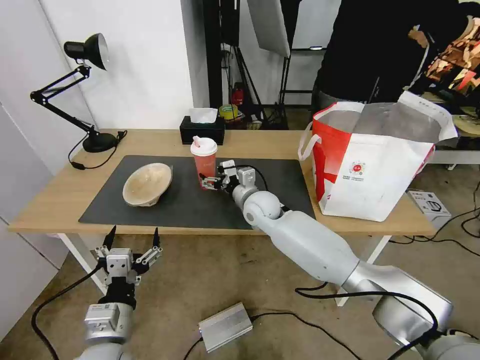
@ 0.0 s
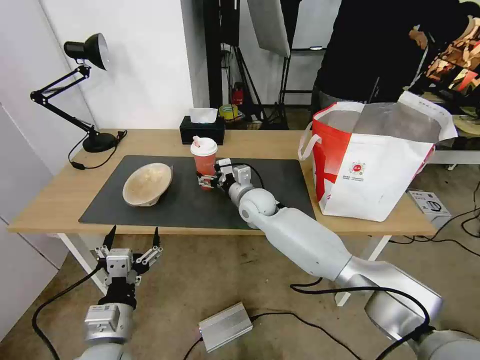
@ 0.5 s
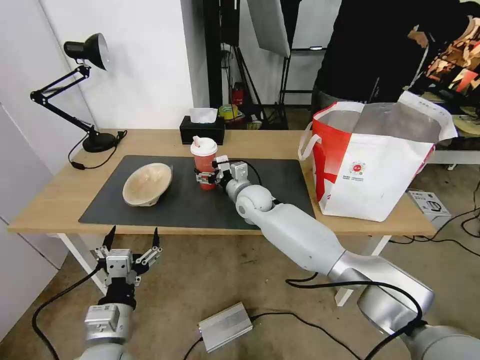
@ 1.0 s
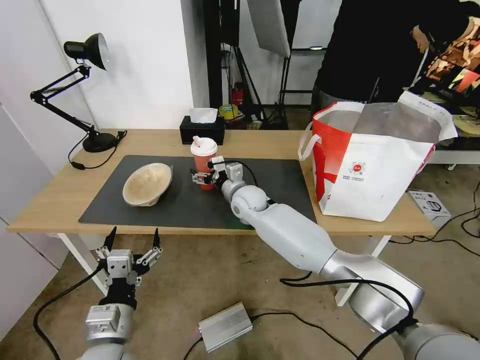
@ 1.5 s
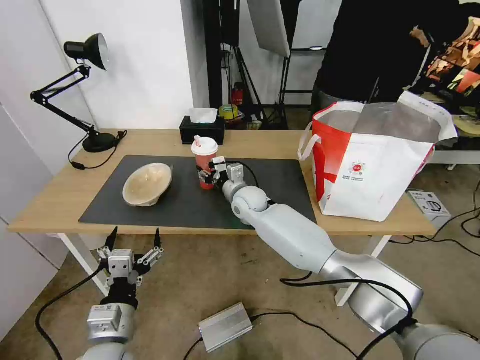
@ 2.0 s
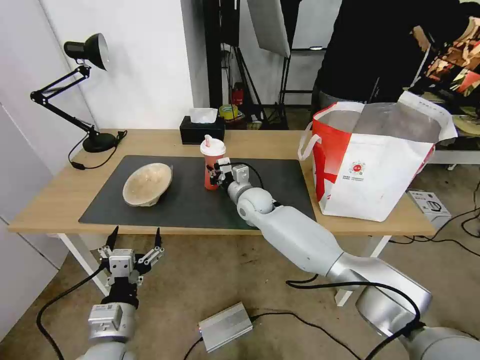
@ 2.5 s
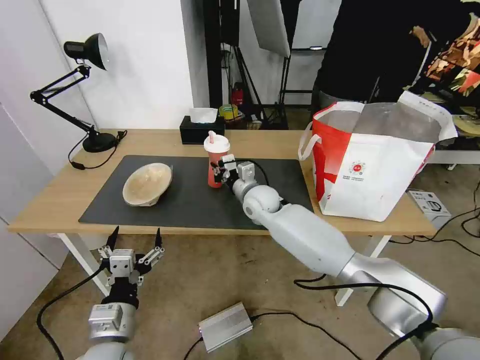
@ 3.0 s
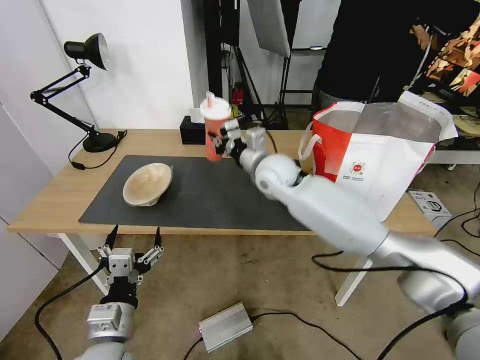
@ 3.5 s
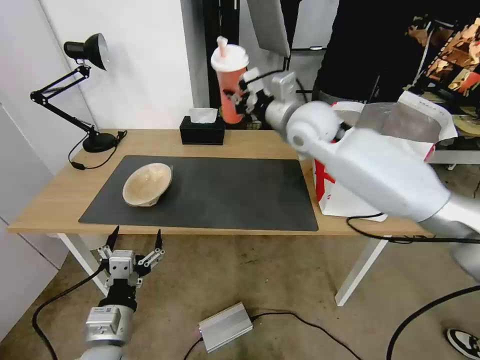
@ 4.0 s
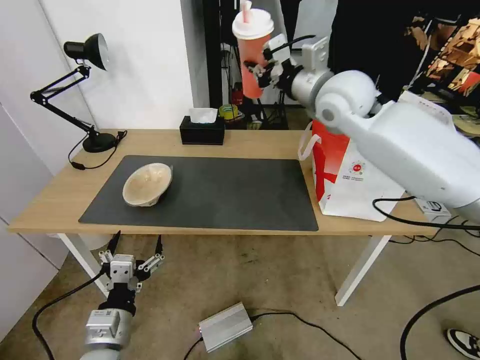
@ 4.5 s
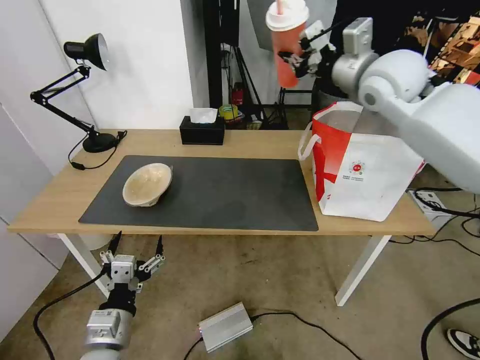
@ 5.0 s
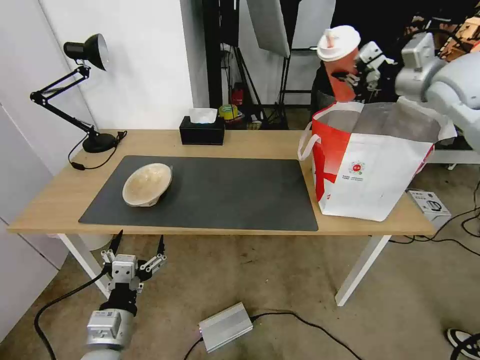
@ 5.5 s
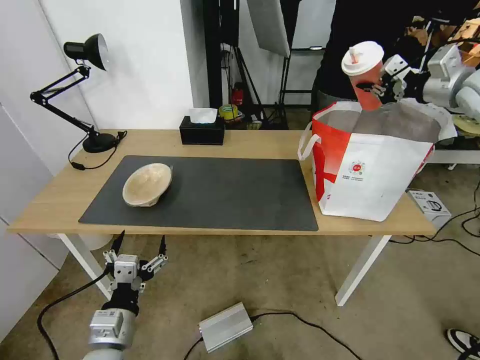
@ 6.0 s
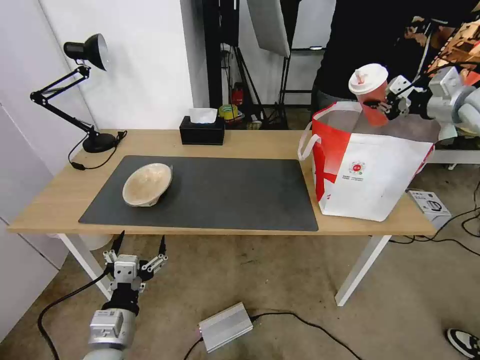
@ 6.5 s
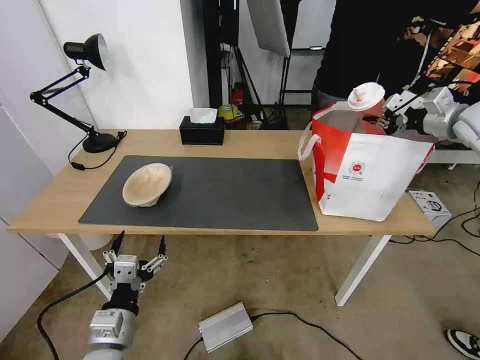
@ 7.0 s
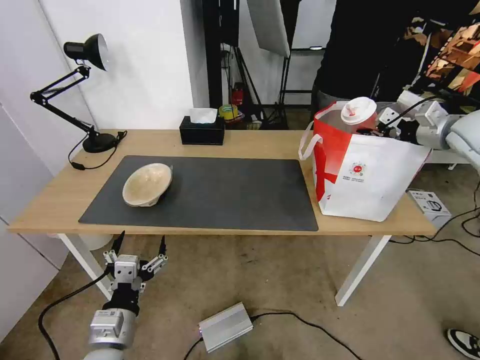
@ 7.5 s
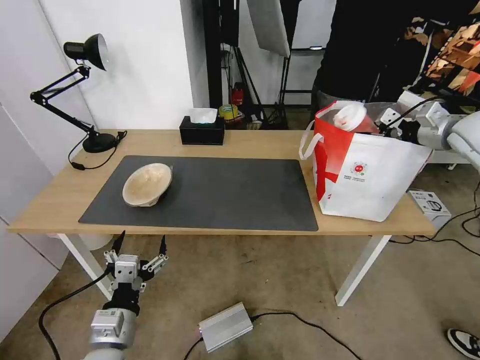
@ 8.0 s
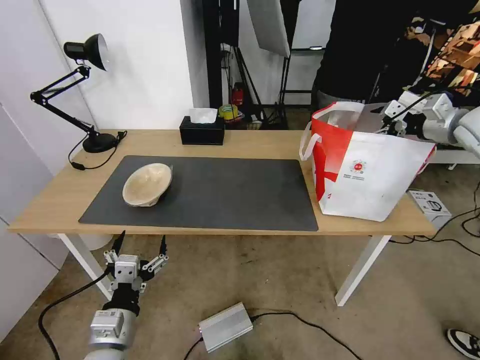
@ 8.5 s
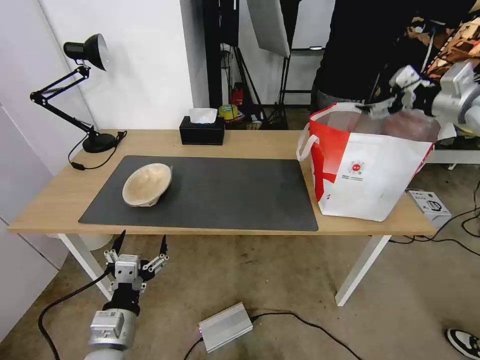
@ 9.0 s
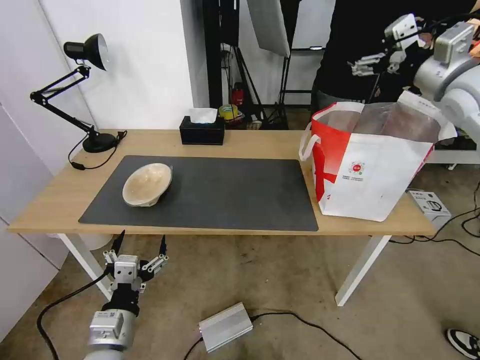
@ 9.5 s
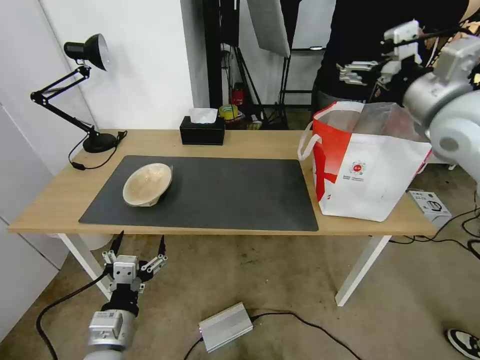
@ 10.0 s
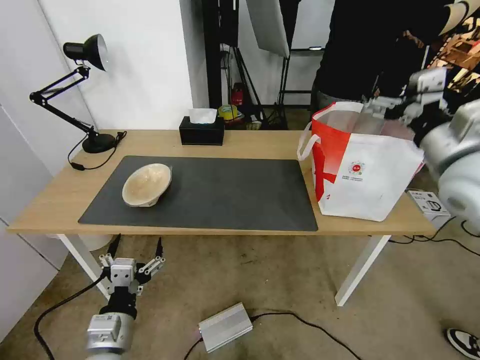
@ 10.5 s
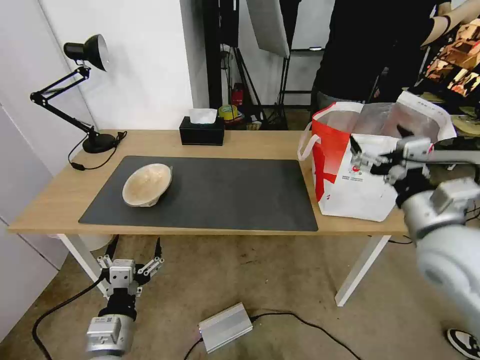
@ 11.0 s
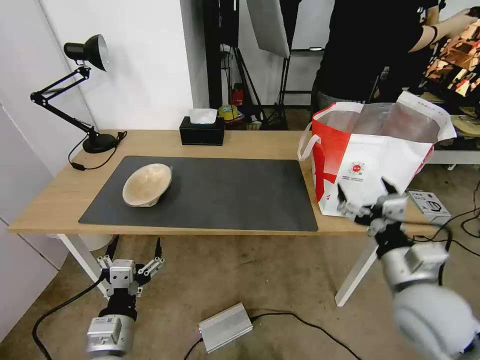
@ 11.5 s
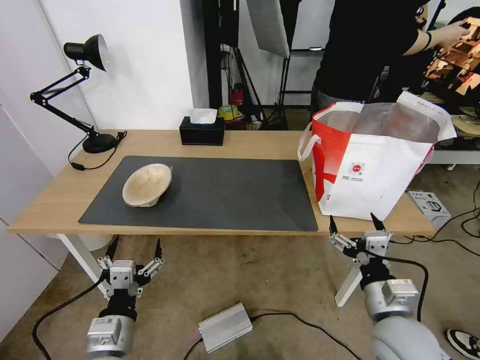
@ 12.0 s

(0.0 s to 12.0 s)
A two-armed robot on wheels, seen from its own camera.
Task of the whole recording: Pick up the trash from the table and place it into the takeout bag.
0.0 s - 2.0 s: The right gripper closes up.
2.0 s - 4.0 s: The right gripper shifts about 25 cm upward and to the right, and closes its fingers.
4.0 s - 6.0 s: The right gripper travels to the right by about 30 cm.
6.0 s - 8.0 s: The right gripper is displaced downward by roughly 10 cm.
8.0 s - 10.0 s: The right gripper travels to the left, backward and upward by roughly 20 cm, and opens up.
10.0 s - 12.0 s: The right gripper is displaced downward and backward by some 40 cm.

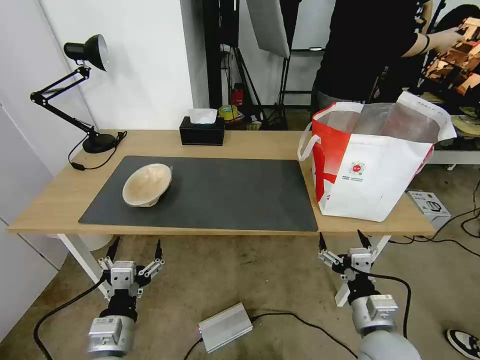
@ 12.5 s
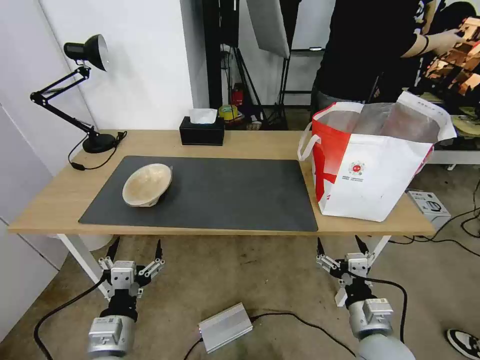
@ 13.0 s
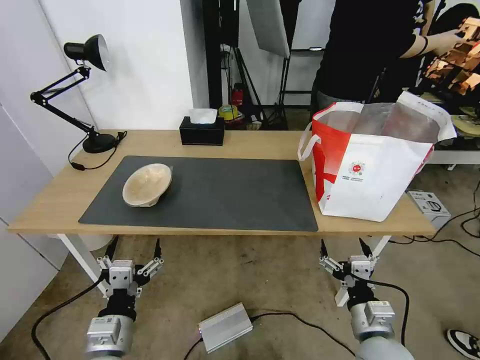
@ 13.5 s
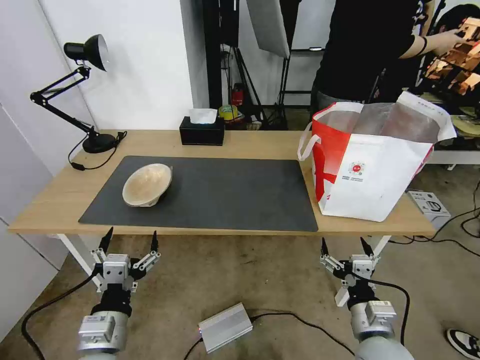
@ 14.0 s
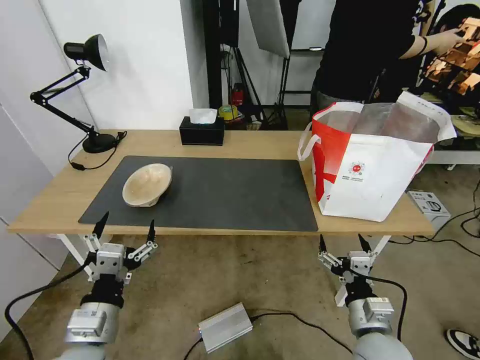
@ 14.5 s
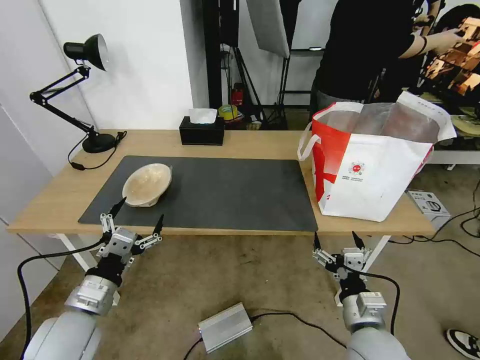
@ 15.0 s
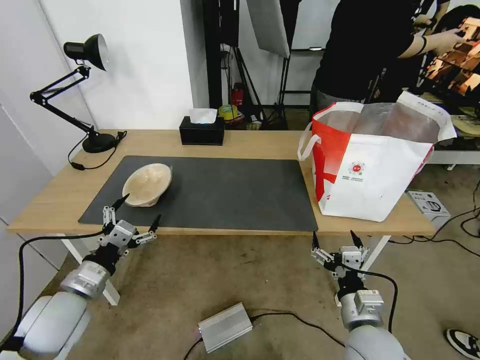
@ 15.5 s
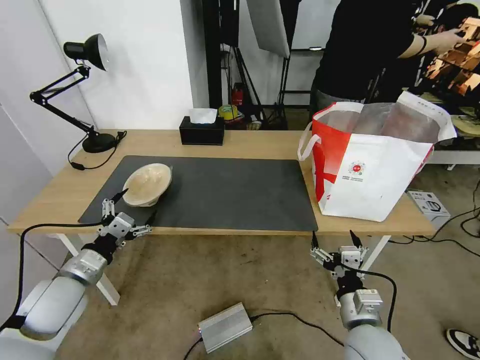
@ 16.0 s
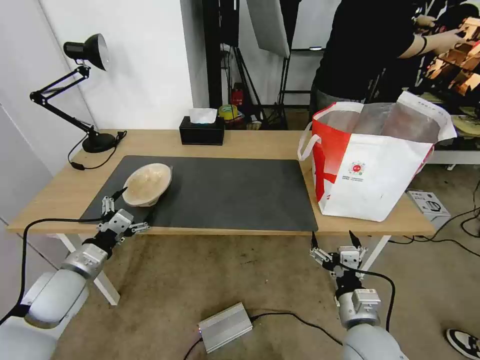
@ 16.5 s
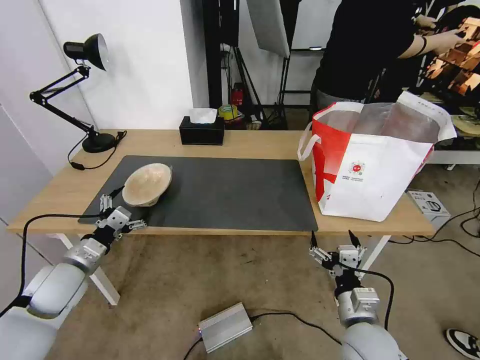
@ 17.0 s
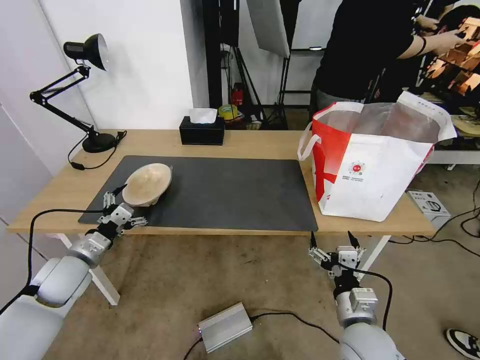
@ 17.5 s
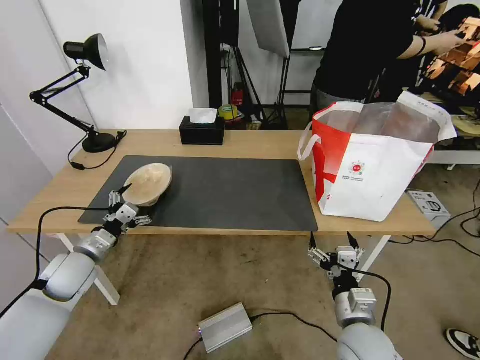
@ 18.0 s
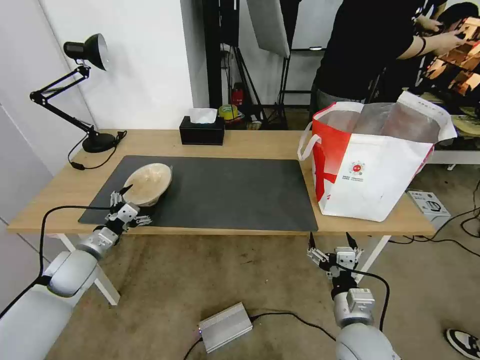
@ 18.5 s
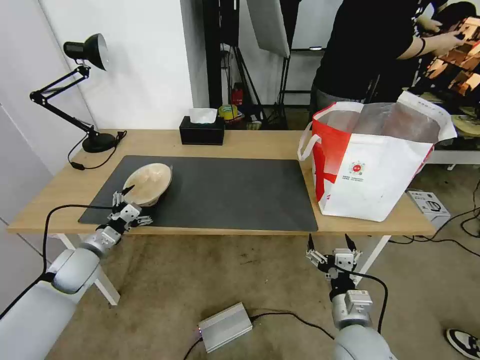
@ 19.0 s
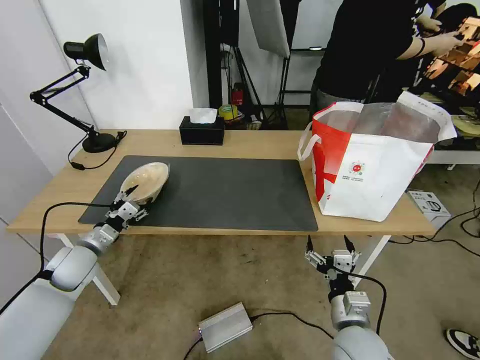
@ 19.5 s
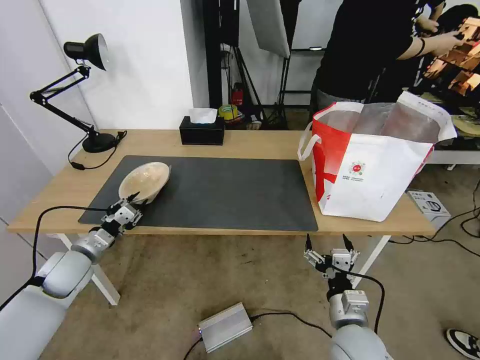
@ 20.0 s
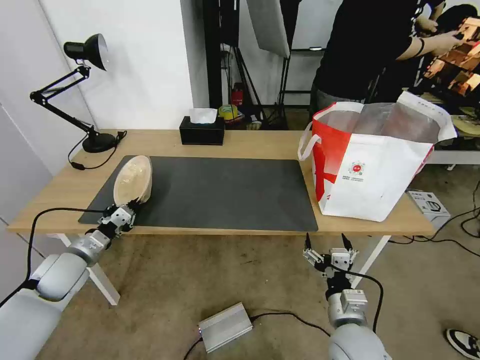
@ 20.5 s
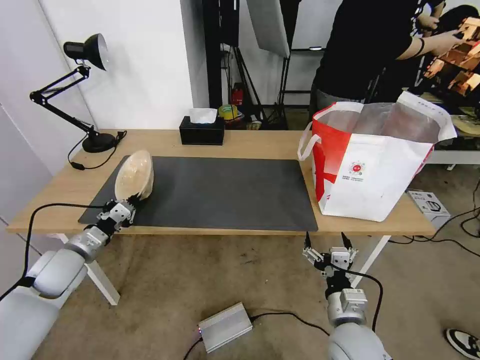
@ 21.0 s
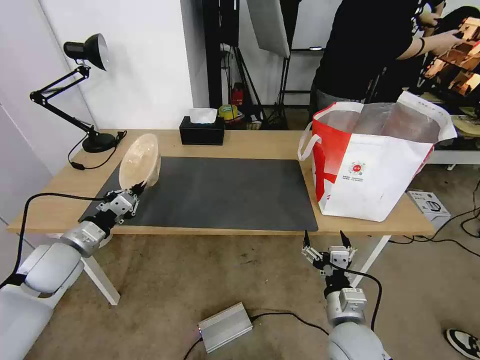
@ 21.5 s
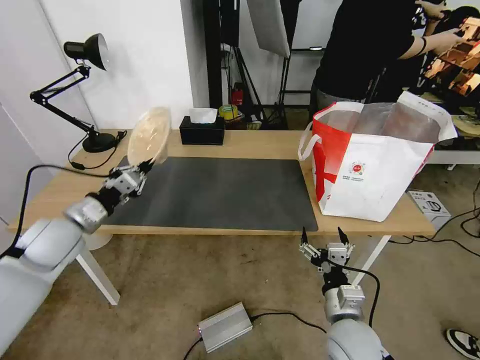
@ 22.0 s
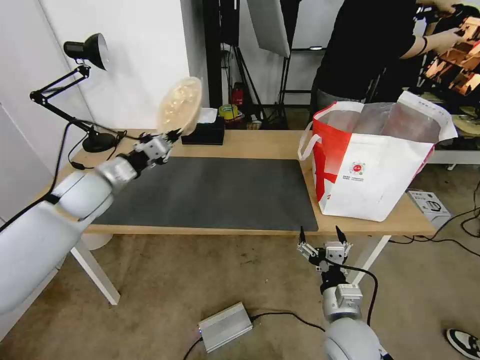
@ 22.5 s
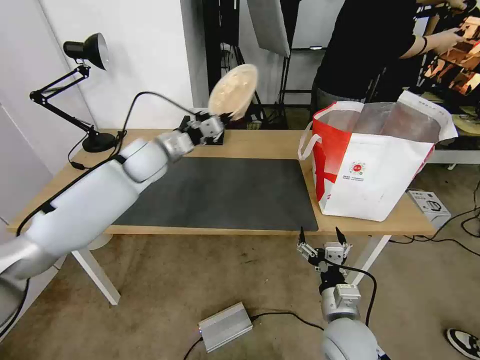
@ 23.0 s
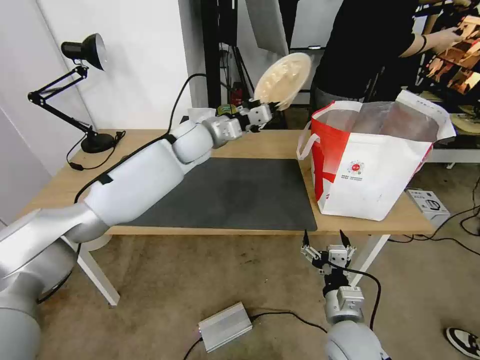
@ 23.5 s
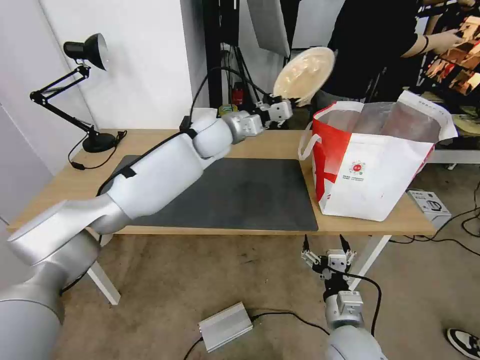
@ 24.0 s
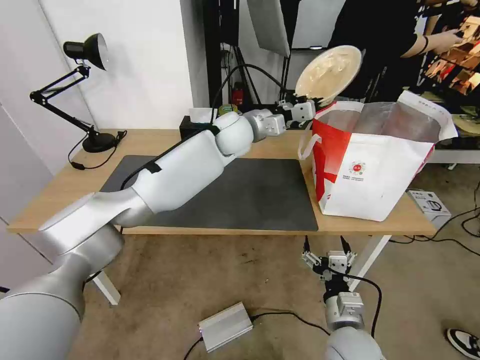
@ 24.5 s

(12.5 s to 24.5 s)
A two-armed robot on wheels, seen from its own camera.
Task of the whole recording: Pick up the trash from the table and place it into the takeout bag.
12.5 s - 14.5 s: The left gripper shifts about 5 cm upward.
14.5 s - 16.5 s: The left gripper heads forward and to the left, covering some 20 cm.
16.5 s - 18.5 s: The left gripper shifts approximately 5 cm forward.
18.5 s - 20.5 s: The left gripper closes.
20.5 s - 22.5 s: The left gripper shifts about 20 cm upward, forward and to the right.
22.5 s - 24.5 s: The left gripper is displaced to the right and forward by about 35 cm.

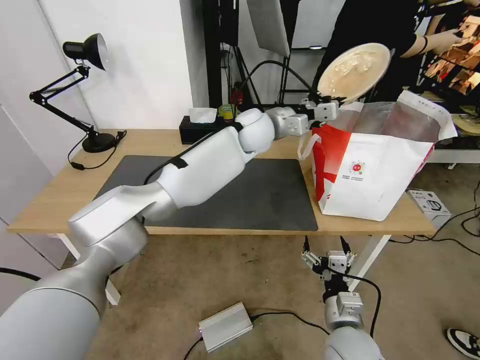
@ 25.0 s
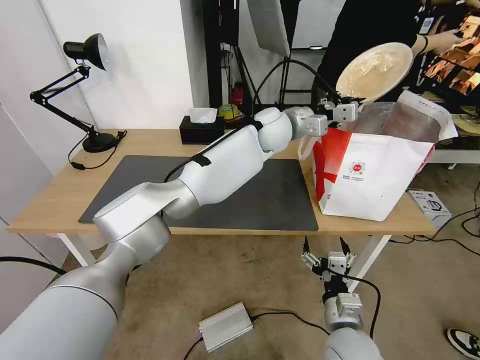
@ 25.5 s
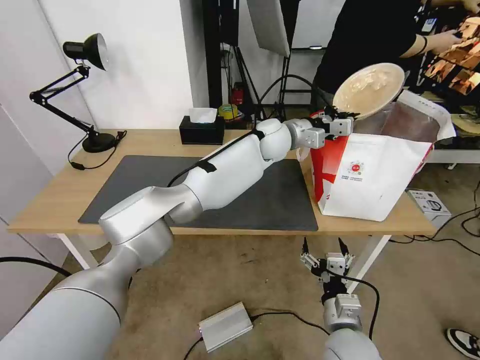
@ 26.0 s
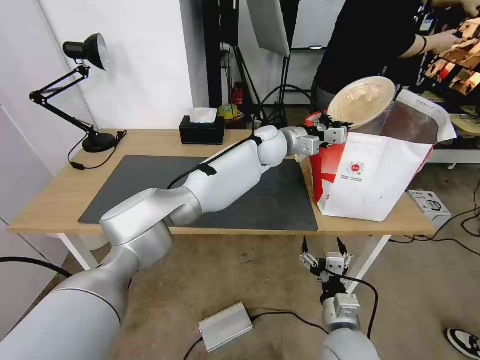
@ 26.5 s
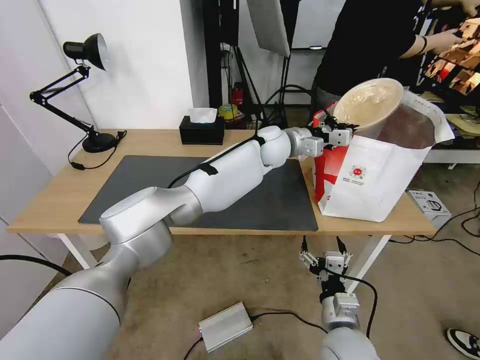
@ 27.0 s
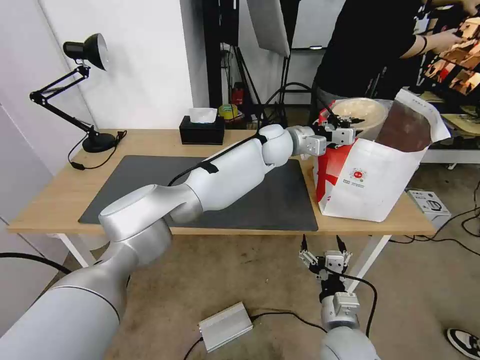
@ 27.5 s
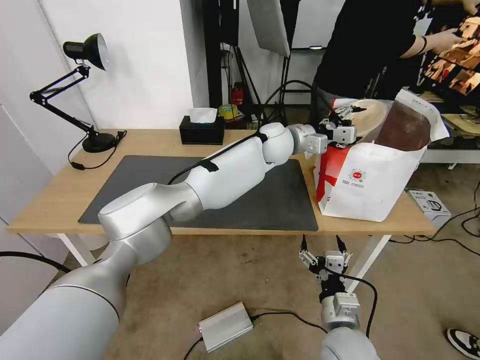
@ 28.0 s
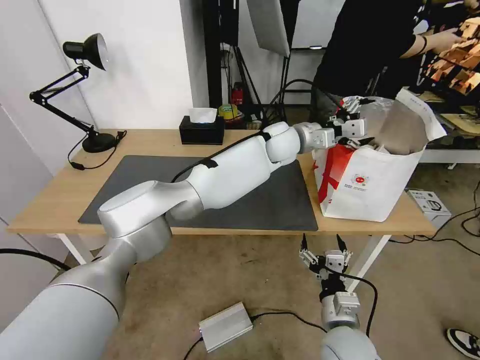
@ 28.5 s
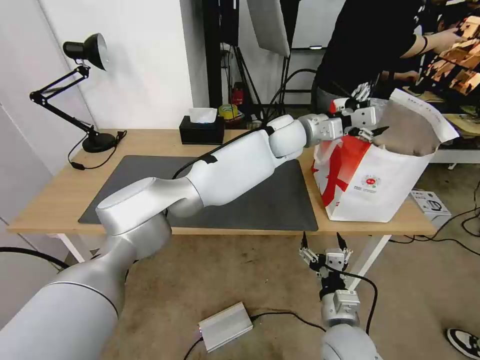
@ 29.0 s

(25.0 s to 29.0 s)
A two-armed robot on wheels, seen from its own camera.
Task of the whole recording: Pick up the trash from the table and place it into the takeout bag.
25.0 s - 27.0 s: The left gripper shifts by about 5 cm.
27.0 s - 29.0 s: The left gripper opens its fingers.
